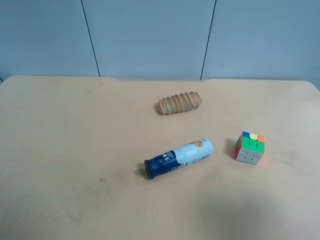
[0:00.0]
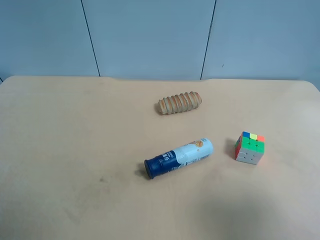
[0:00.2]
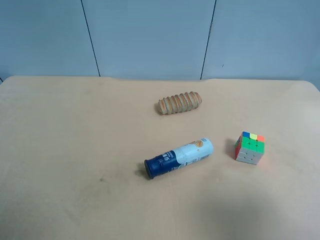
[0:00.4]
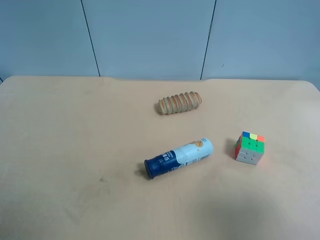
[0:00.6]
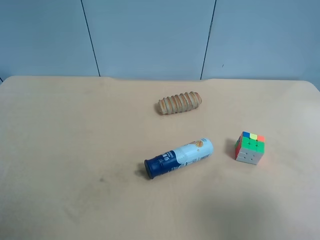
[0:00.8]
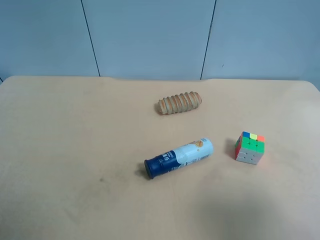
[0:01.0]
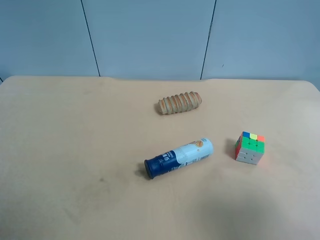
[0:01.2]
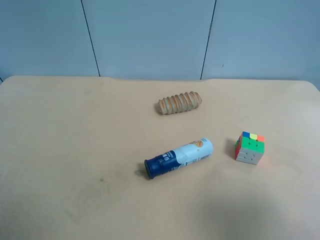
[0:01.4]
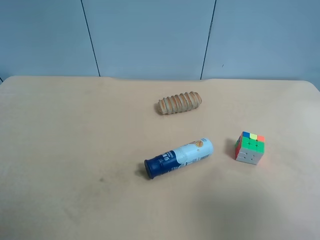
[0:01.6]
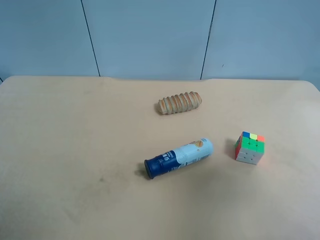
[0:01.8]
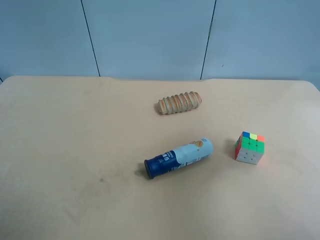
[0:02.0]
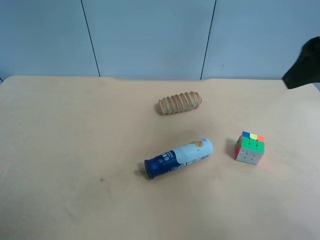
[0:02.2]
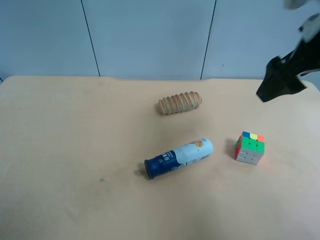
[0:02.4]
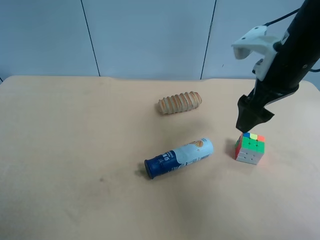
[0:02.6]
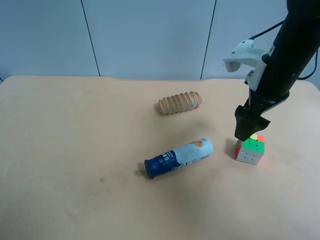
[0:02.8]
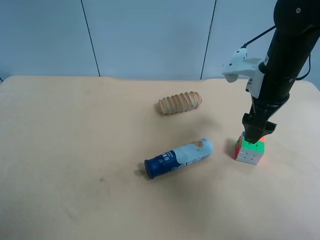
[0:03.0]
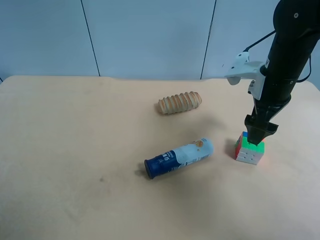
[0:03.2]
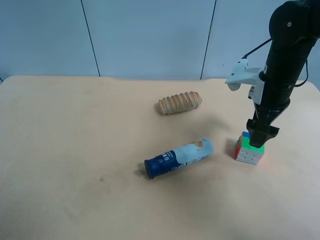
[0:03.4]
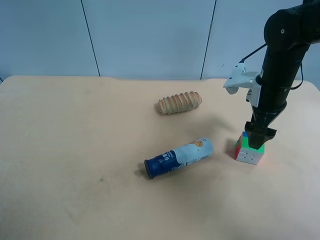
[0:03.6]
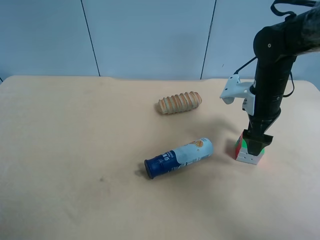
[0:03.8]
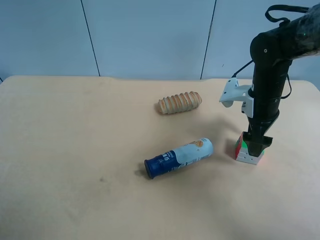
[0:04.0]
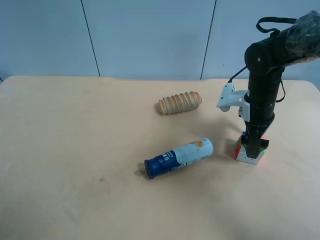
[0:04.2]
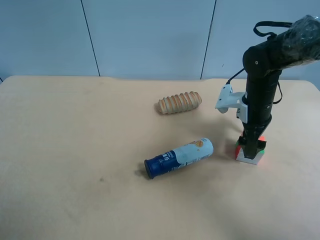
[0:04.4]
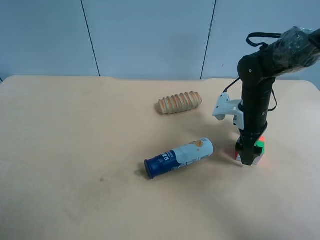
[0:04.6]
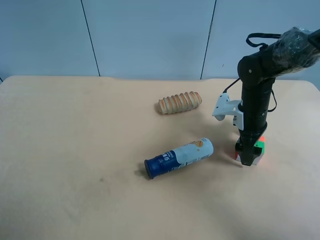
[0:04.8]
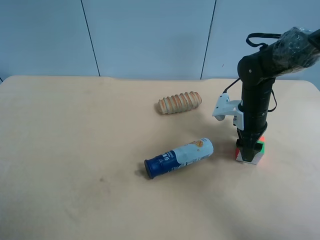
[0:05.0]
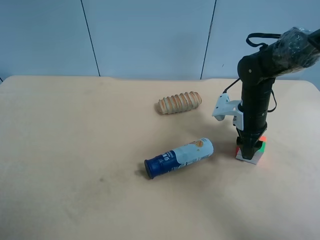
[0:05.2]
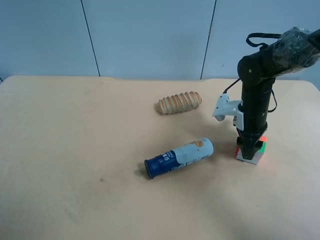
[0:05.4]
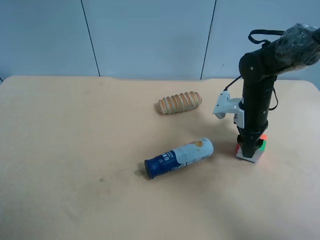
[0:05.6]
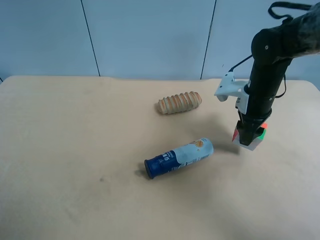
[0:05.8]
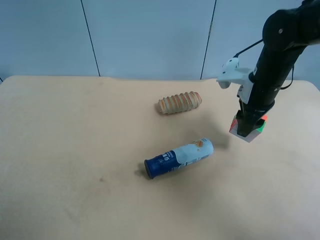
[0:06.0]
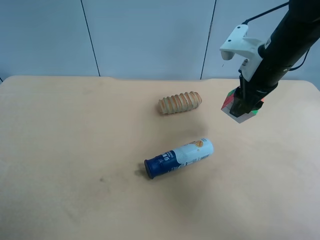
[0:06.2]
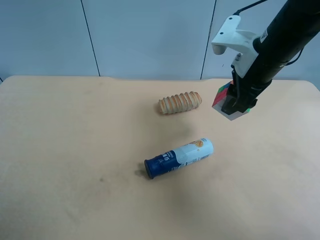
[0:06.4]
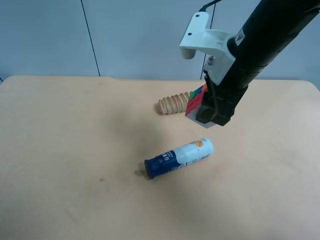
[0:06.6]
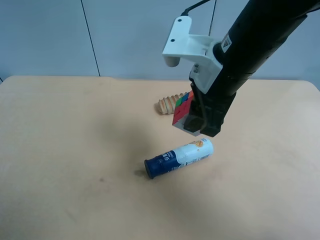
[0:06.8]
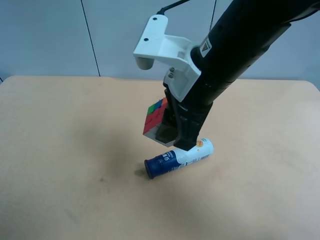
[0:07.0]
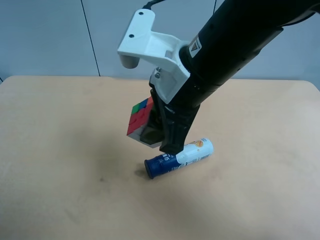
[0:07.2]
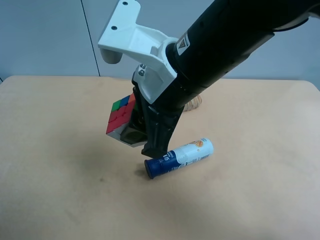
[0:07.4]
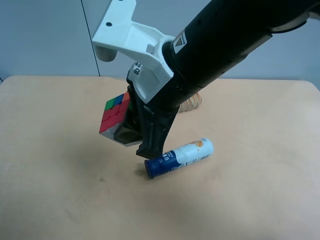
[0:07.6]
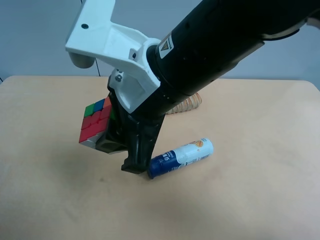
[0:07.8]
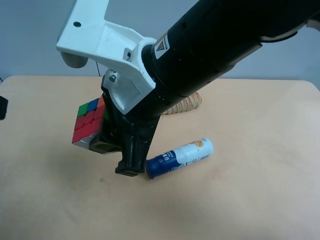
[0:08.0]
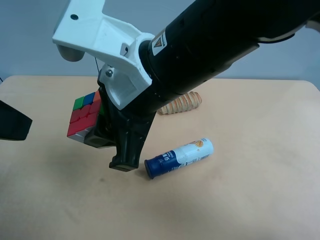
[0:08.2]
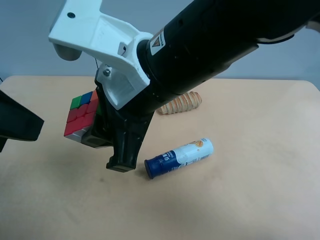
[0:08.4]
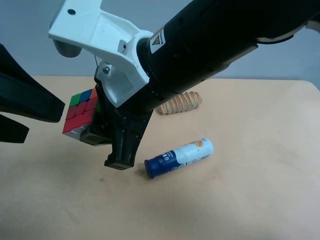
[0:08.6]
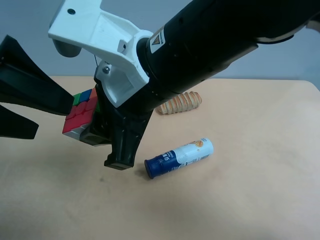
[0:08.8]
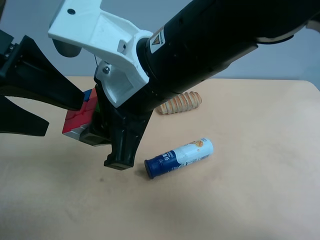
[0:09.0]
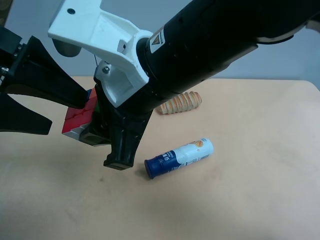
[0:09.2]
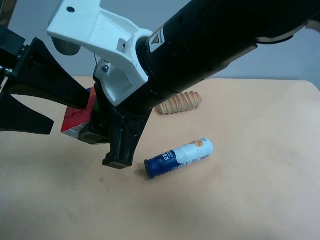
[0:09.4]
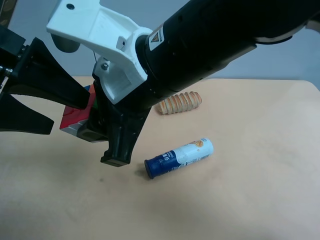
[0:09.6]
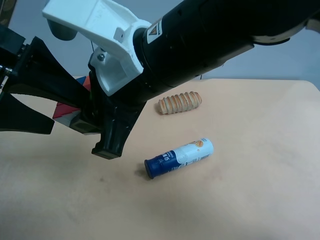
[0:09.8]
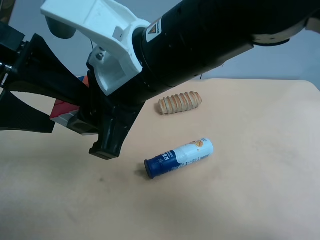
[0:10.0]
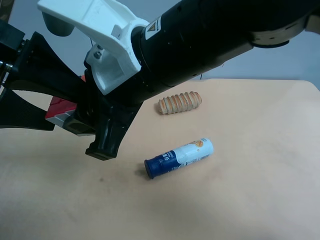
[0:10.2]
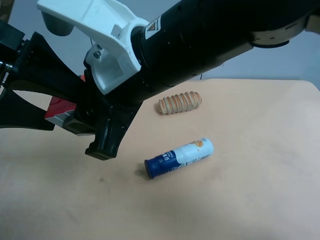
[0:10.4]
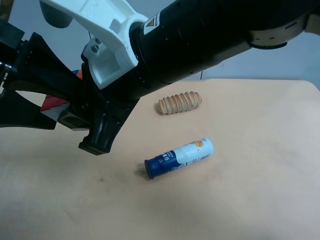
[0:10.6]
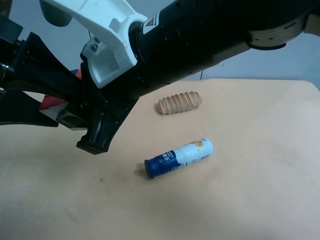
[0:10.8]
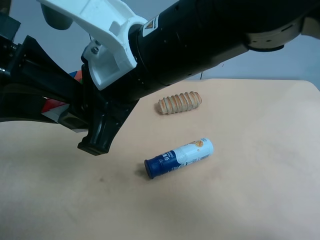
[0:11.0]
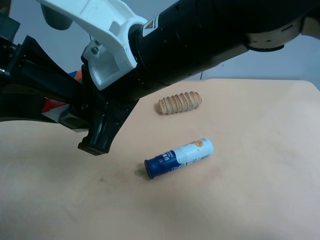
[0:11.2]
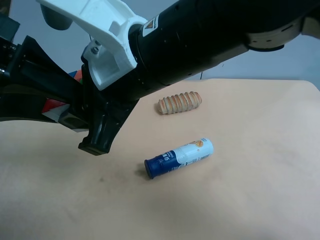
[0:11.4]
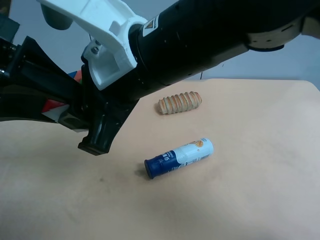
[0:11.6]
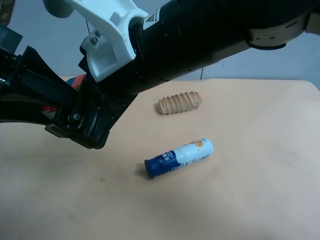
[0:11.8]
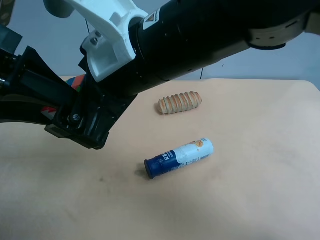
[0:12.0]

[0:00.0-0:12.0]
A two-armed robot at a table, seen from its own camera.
Task of the whole recording: use the right gripper to pick up the item and transfer it from the right gripper to the left gripper.
0:01.6 to 0:03.0: The right gripper heads forward, covering some 30 cm.
0:03.0 to 0:04.4: The right gripper is displaced downward by some 10 cm.
0:04.4 to 0:06.0: The right gripper heads upward, covering approximately 10 cm, and closes its fingers.
0:06.0 to 0:07.6: The right gripper shifts roughly 25 cm to the left, backward and upward, while the left gripper travels upward and forward by approximately 10 cm.
0:07.6 to 0:09.0: The left gripper shifts approximately 10 cm forward and to the right.
0:09.0 to 0:10.4: There are only small adjustments of the grippers.
0:10.4 to 0:12.0: The right gripper opens its fingers. Meanwhile the left gripper closes.

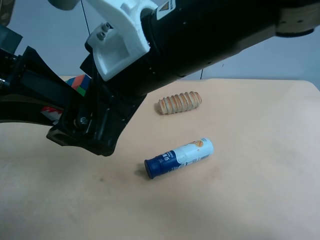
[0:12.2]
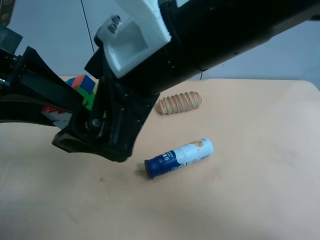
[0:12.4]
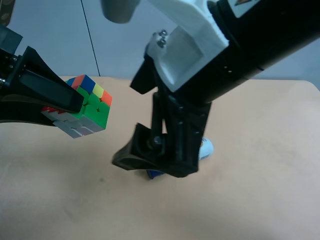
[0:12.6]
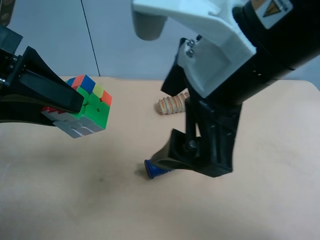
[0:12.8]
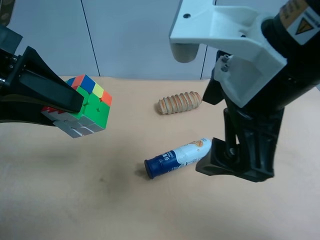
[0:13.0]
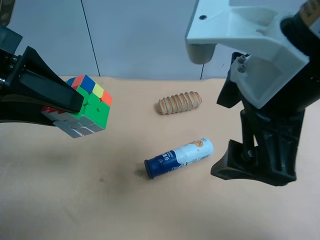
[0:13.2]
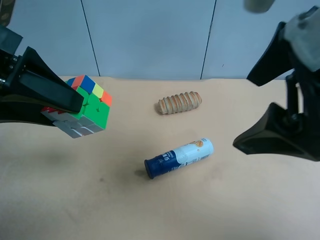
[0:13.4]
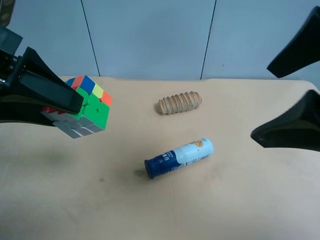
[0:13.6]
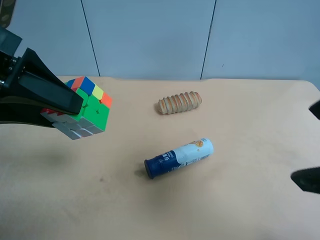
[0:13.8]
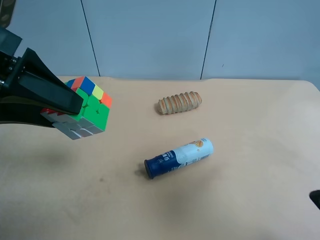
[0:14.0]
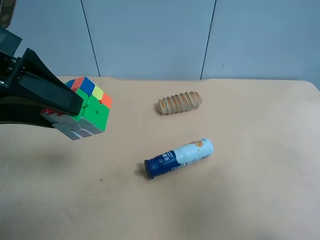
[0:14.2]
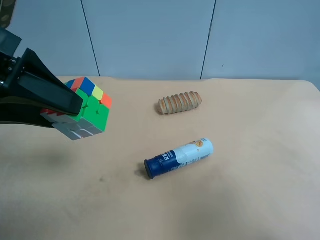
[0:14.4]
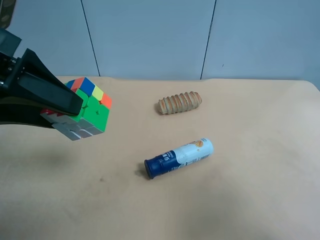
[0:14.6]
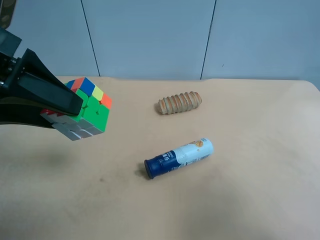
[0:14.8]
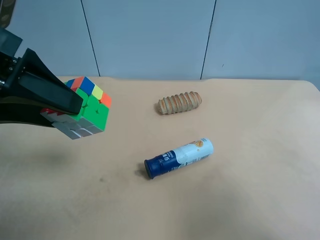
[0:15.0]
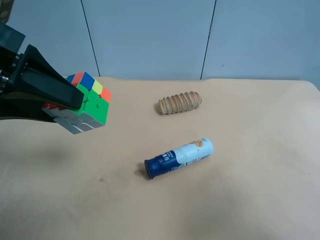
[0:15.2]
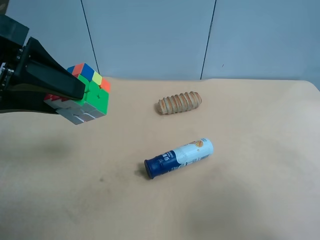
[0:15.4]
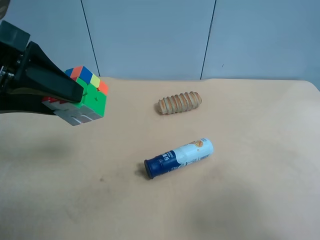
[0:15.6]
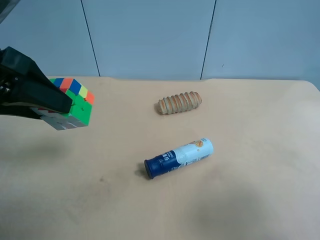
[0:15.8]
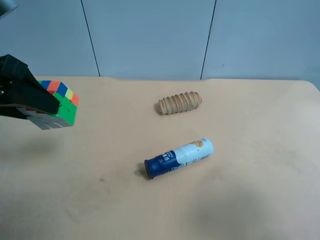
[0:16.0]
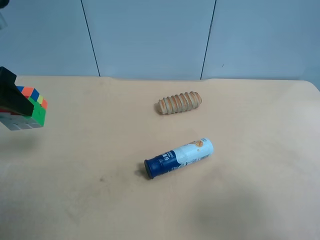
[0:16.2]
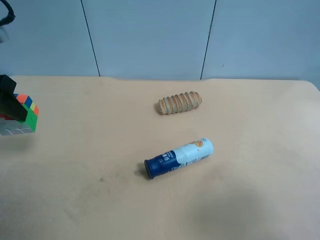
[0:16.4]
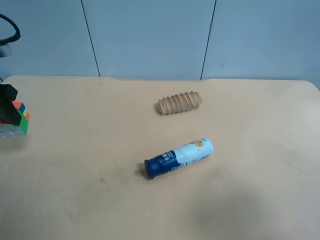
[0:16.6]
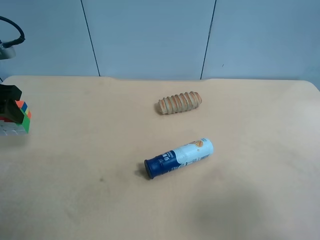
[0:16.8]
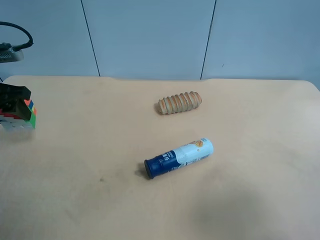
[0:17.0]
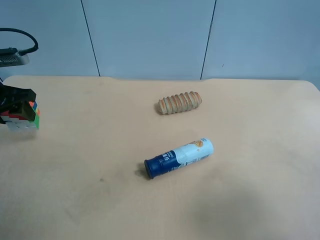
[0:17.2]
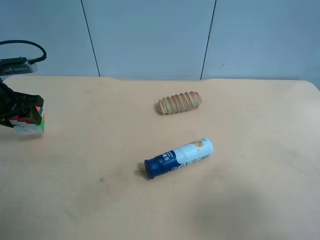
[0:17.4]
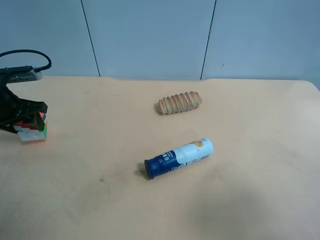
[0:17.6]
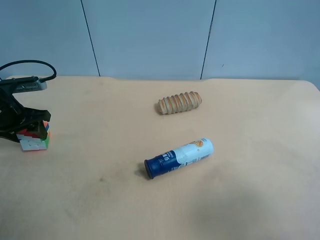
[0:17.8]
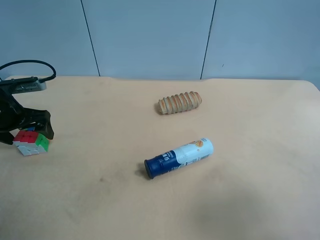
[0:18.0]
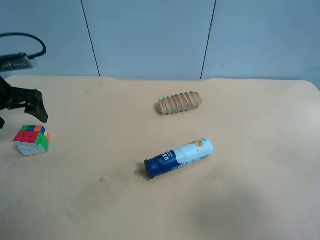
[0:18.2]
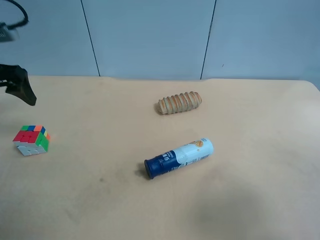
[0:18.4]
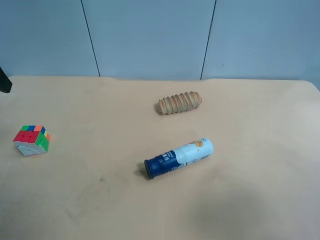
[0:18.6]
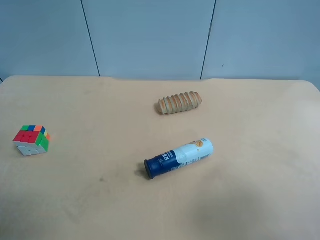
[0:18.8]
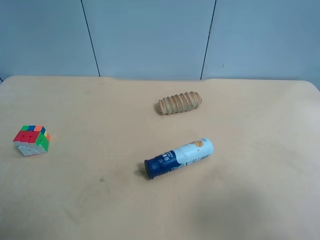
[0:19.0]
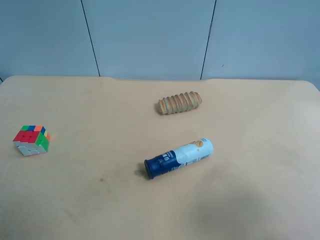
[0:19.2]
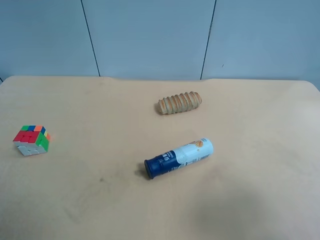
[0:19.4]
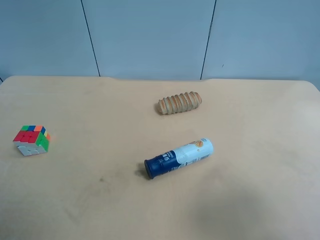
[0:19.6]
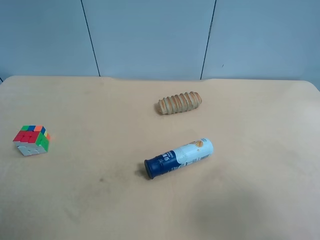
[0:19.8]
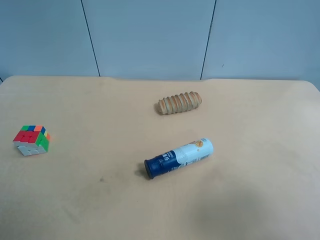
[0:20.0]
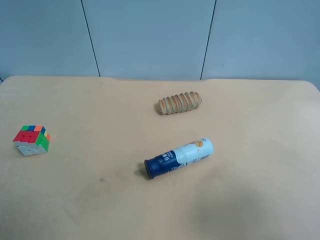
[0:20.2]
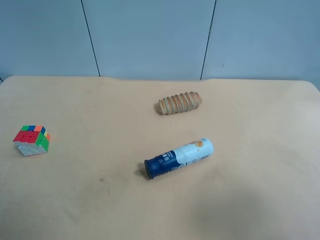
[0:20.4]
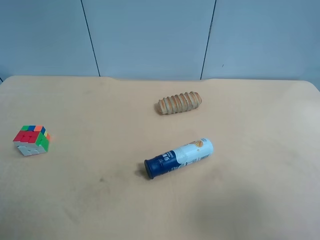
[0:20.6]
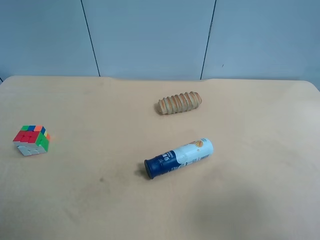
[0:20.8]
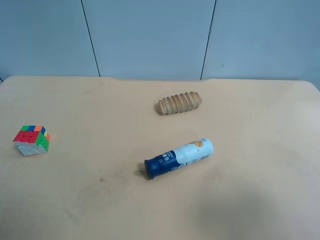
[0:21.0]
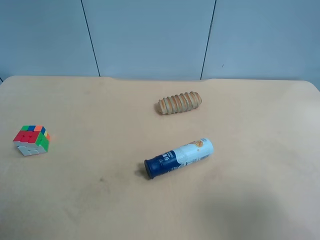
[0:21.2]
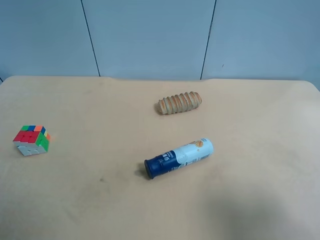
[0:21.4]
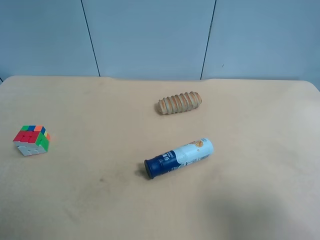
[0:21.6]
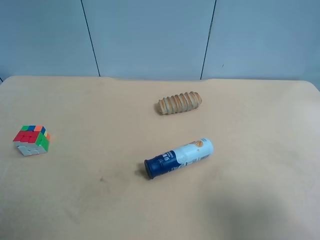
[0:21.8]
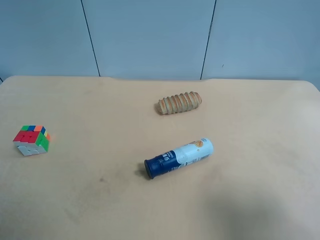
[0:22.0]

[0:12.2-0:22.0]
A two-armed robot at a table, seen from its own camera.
Task of the whole recording: use the right gripper to pick up the item and transfer it from the right gripper to the left gripper.
0:12.2 to 0:13.6: The right gripper is displaced to the right by some 15 cm.
0:13.6 to 0:15.0: The right gripper moves to the right, downward and backward, approximately 15 cm.
0:15.0 to 0:16.4: The left gripper travels to the left and forward by some 10 cm.
0:16.4 to 0:17.8: The left gripper goes some 15 cm downward and forward, and opens.
0:17.8 to 0:19.2: The left gripper travels backward and upward by about 30 cm, and opens its fingers.
